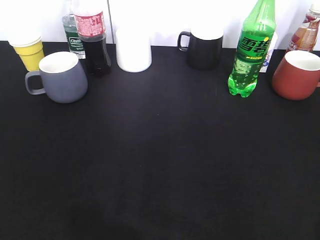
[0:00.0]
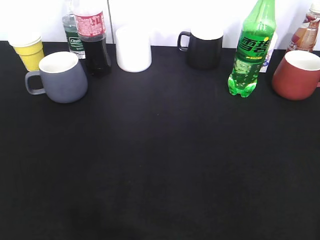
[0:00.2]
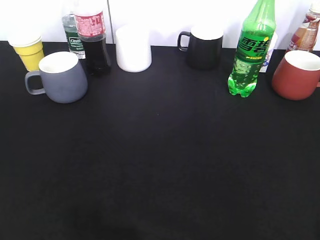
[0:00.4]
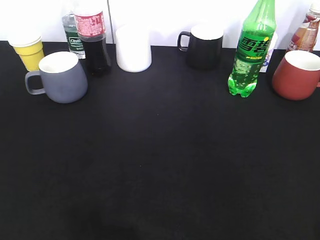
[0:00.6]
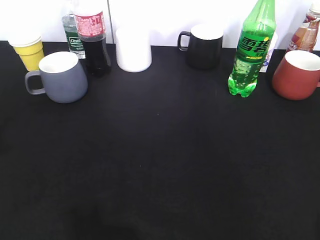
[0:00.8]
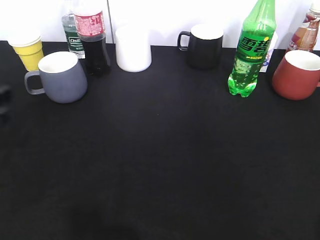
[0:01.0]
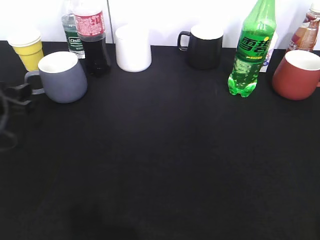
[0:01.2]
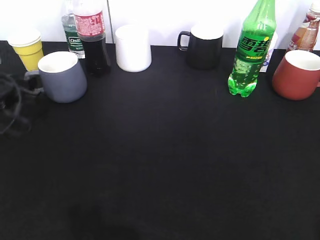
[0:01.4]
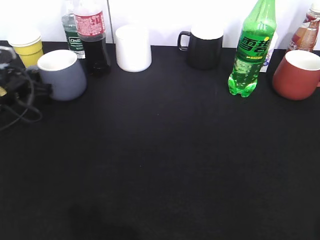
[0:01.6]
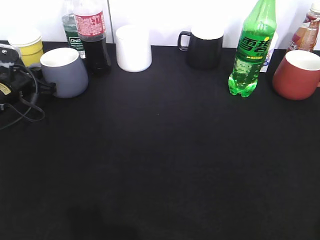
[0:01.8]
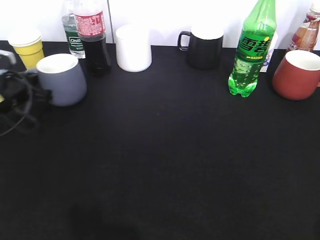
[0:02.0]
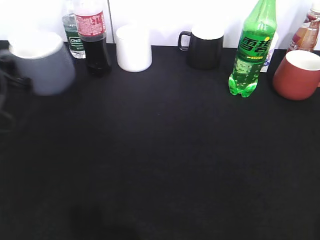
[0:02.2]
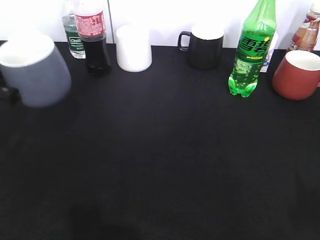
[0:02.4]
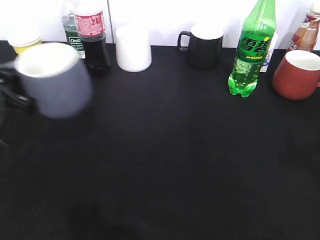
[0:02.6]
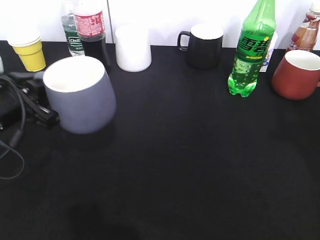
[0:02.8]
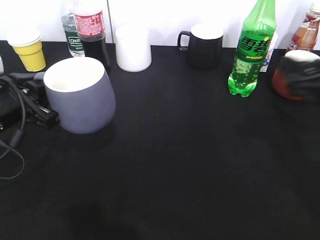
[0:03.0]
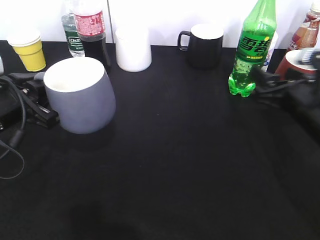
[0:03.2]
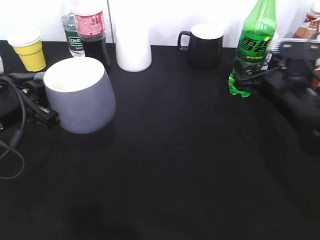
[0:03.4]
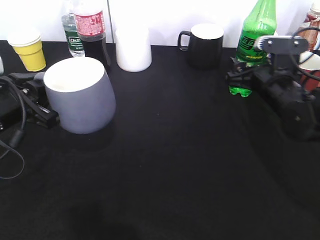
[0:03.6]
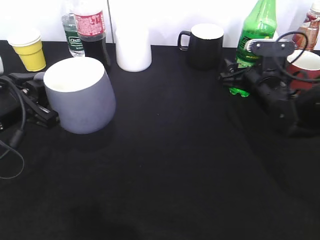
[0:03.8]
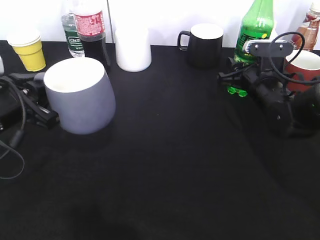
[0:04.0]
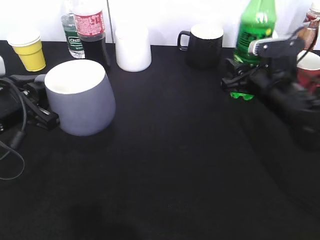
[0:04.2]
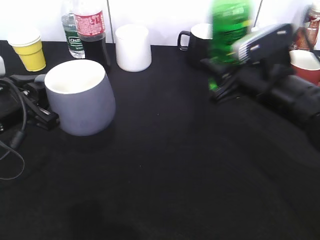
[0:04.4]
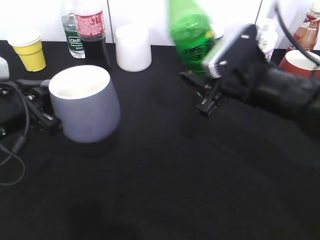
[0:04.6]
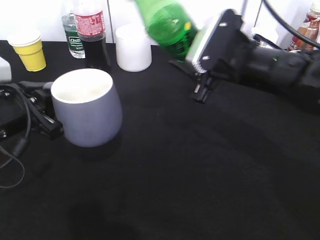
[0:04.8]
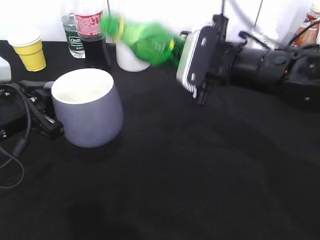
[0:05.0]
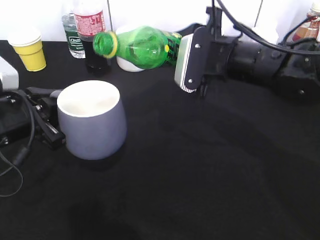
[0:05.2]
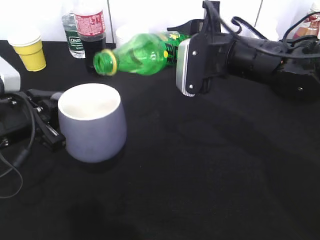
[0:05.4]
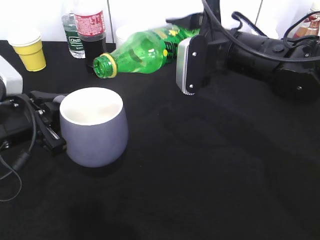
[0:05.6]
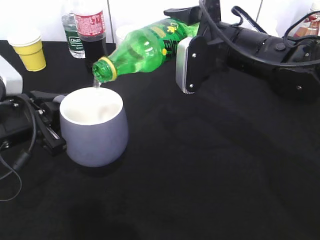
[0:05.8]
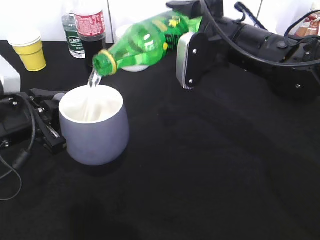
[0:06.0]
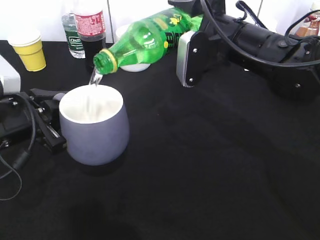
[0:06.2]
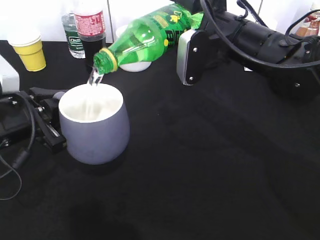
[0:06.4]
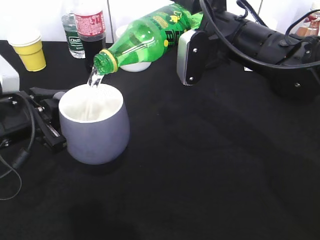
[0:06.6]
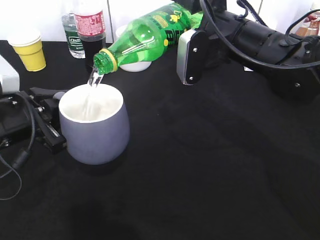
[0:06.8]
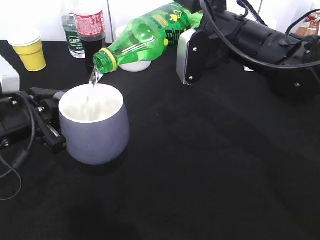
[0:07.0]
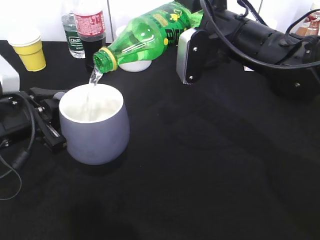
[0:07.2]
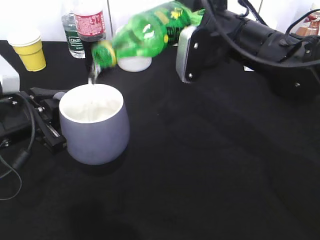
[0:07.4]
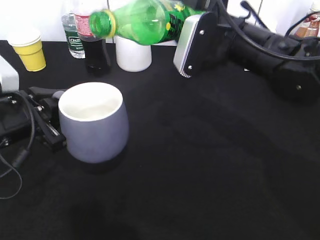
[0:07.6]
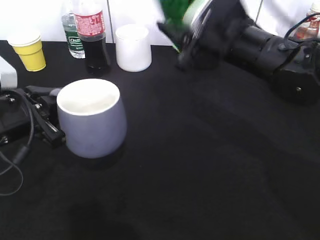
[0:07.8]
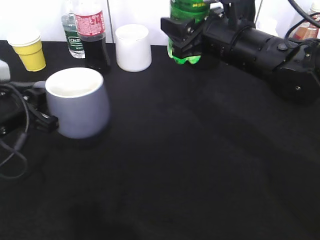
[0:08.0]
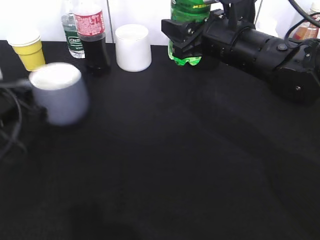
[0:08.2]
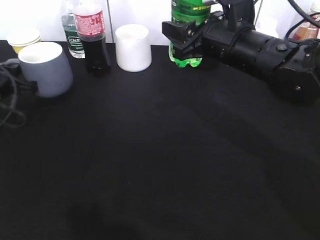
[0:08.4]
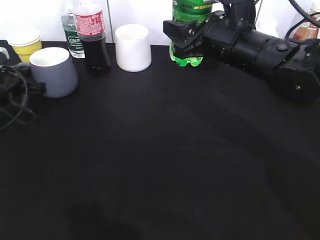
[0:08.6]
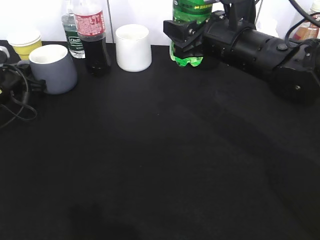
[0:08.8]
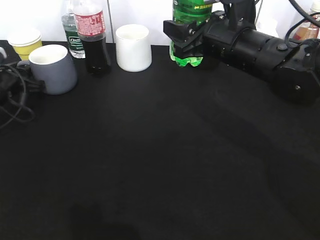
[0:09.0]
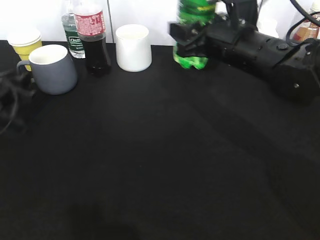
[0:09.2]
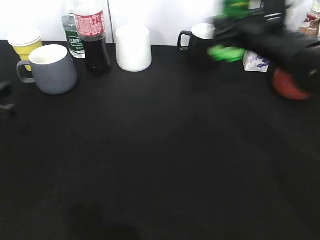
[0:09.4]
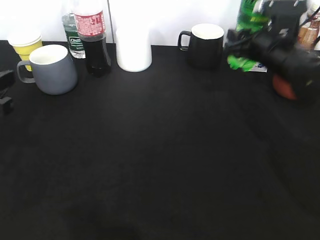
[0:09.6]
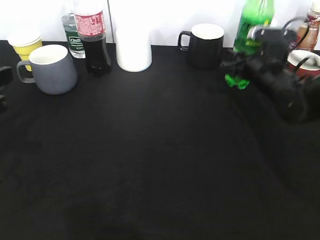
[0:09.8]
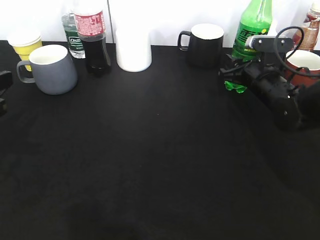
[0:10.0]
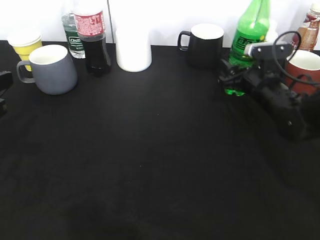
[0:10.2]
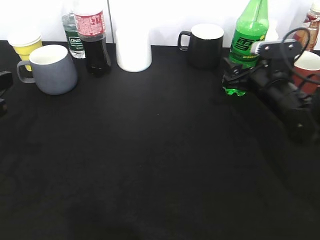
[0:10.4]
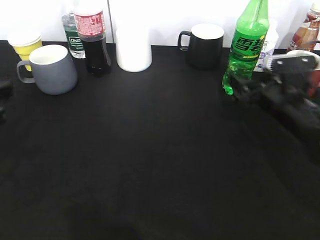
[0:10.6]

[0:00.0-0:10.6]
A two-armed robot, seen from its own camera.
Step, 0:00.0 to 0:01.8: Grasp the grey cup with left gripper.
Step, 0:02.0 to 0:02.8: Lift the grey cup with left gripper.
Step, 0:03.0 to 0:04.0: Grasp the bottle with sprite with right gripper.
Step, 0:04.2 to 0:07.4: Pour the sprite from bottle to cup with right gripper.
Step, 0:07.8 to 0:10.4: Place the sprite bottle on the table with right gripper.
0:00.0 to 0:01.6: The left gripper moves forward and downward, roughly 40 cm, and closes its fingers.
0:01.6 to 0:03.0: The left gripper goes approximately 15 cm backward, upward and to the right. The right gripper heads forward, covering approximately 25 cm.
0:03.0 to 0:04.6: The right gripper travels to the left and forward by roughly 10 cm, and closes its fingers.
0:04.6 to 0:06.0: The right gripper ends up about 5 cm from where it was.
0:06.0 to 0:07.6: There are only small adjustments of the grippers.
0:07.6 to 0:09.0: The left gripper travels forward, to the left and downward by approximately 20 cm, and opens.
0:09.0 to 0:10.6: The left gripper travels backward and upward by some 20 cm. Meanwhile the right gripper is displaced to the right and downward by about 15 cm, and opens.

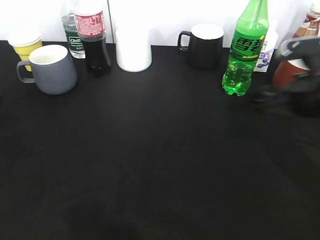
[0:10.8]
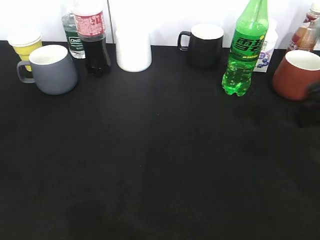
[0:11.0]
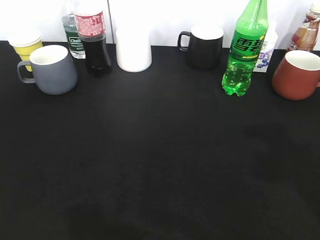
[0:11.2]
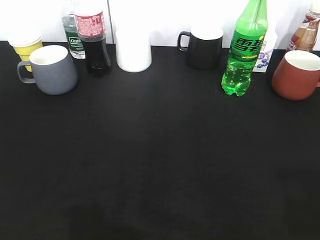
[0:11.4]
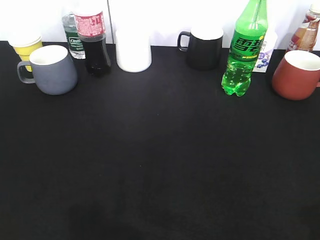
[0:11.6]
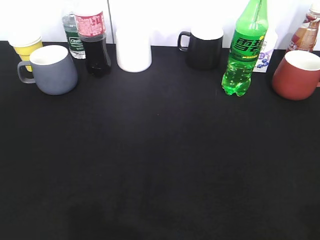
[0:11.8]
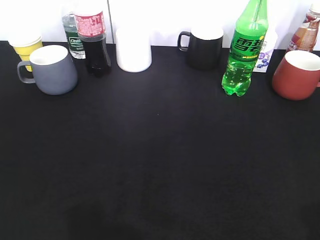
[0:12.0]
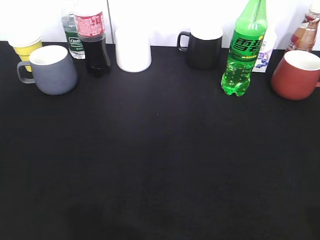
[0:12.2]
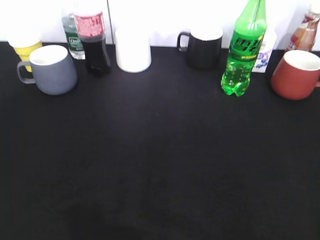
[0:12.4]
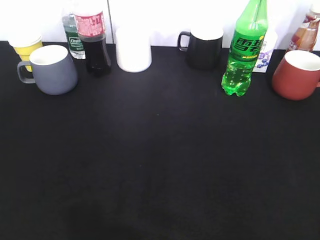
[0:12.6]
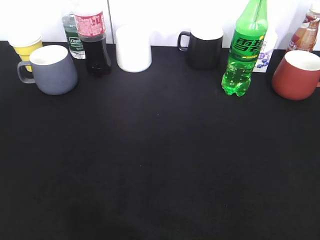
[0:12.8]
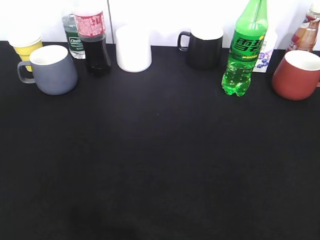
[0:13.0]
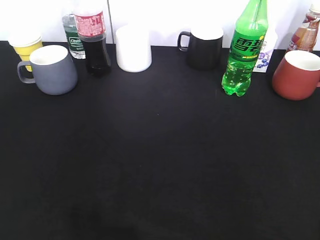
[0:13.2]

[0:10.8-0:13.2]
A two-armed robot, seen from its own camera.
0:10.8 to 0:12.0: The grippers both shift backward by some 20 cm. The left gripper opens its fingers.

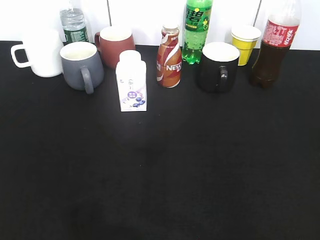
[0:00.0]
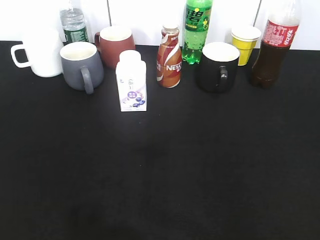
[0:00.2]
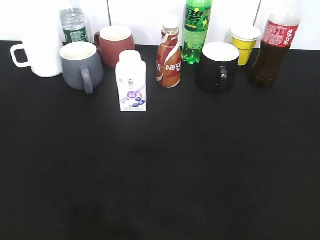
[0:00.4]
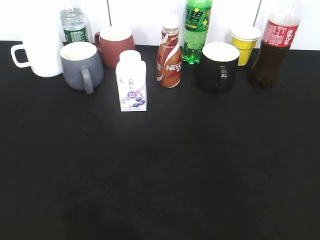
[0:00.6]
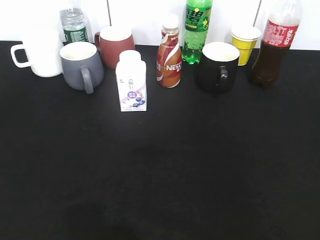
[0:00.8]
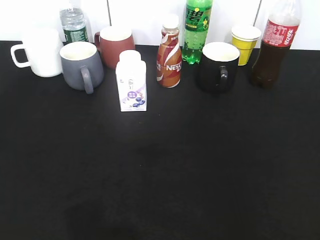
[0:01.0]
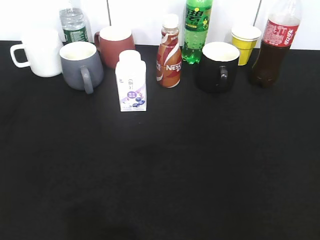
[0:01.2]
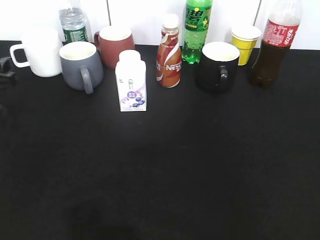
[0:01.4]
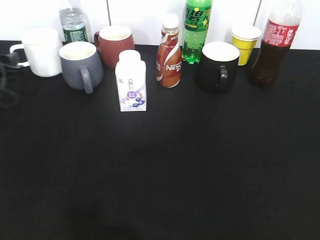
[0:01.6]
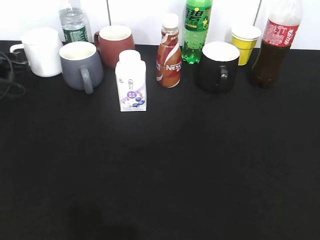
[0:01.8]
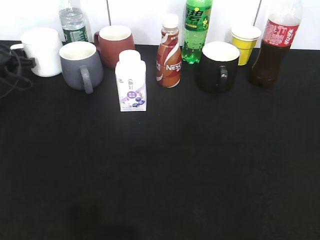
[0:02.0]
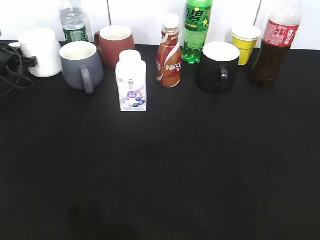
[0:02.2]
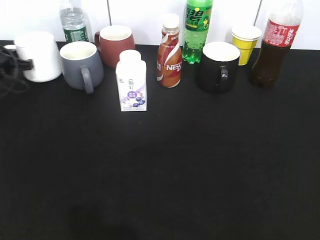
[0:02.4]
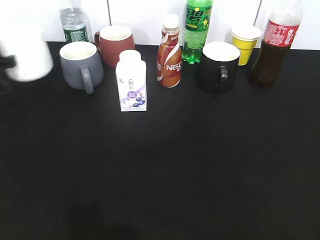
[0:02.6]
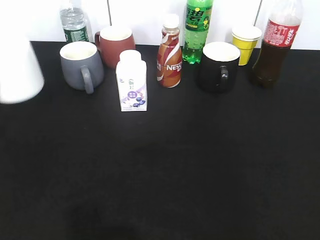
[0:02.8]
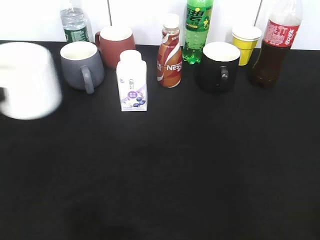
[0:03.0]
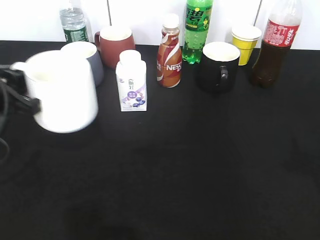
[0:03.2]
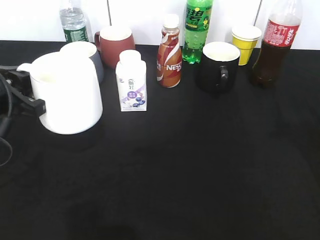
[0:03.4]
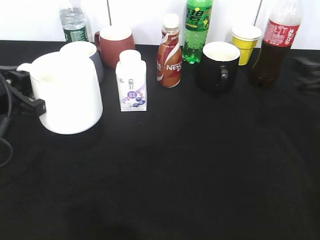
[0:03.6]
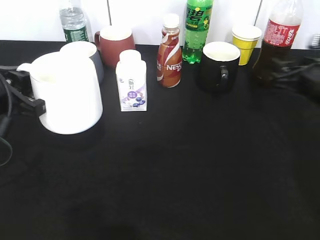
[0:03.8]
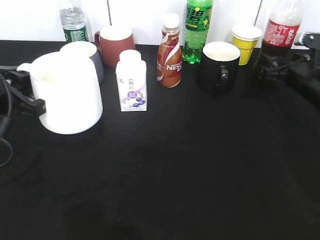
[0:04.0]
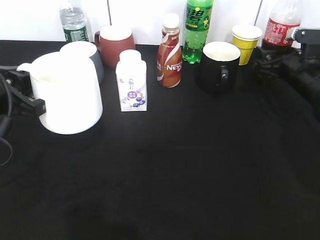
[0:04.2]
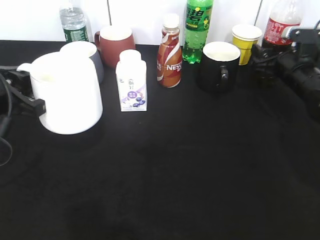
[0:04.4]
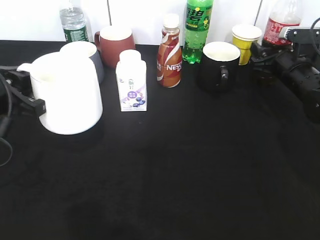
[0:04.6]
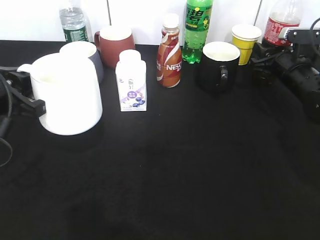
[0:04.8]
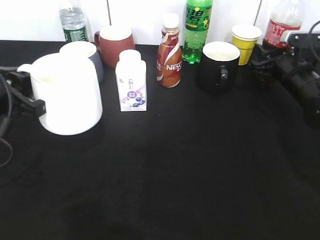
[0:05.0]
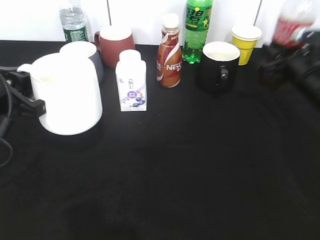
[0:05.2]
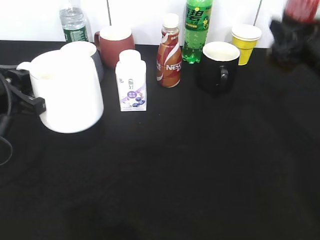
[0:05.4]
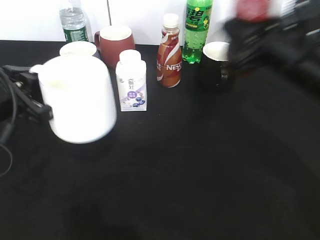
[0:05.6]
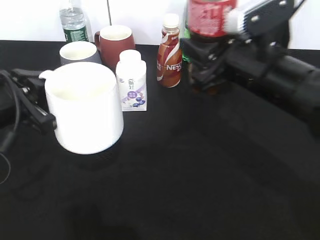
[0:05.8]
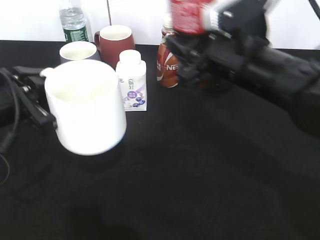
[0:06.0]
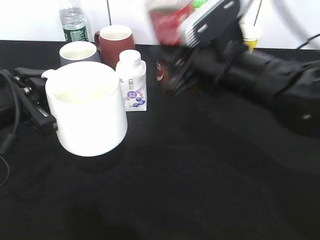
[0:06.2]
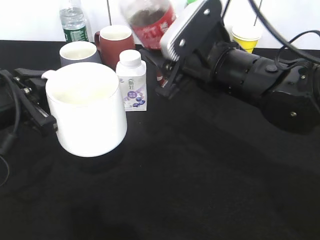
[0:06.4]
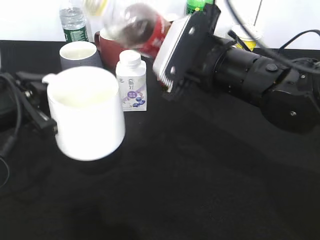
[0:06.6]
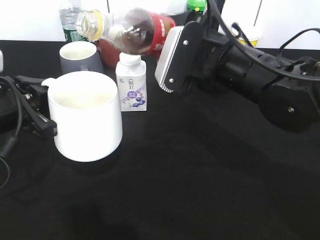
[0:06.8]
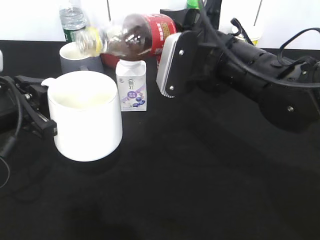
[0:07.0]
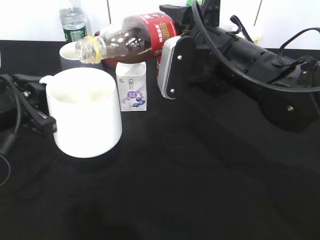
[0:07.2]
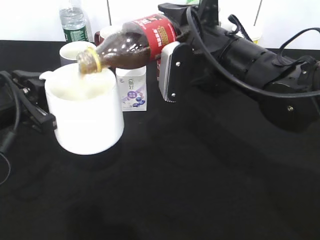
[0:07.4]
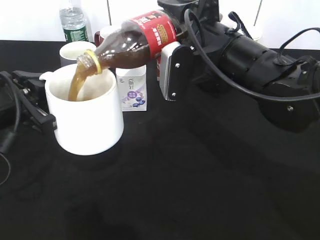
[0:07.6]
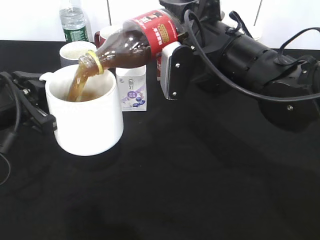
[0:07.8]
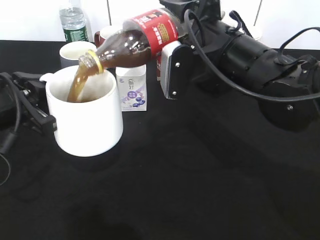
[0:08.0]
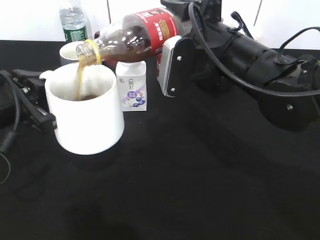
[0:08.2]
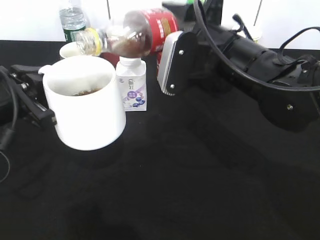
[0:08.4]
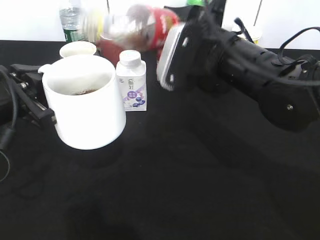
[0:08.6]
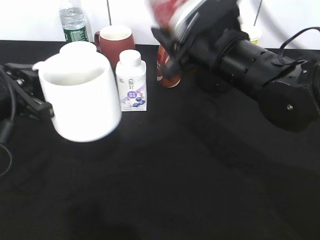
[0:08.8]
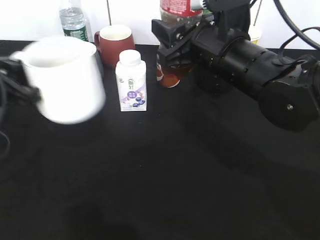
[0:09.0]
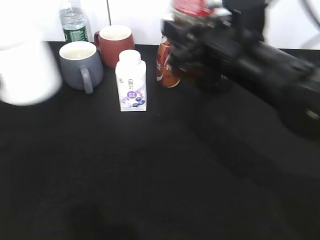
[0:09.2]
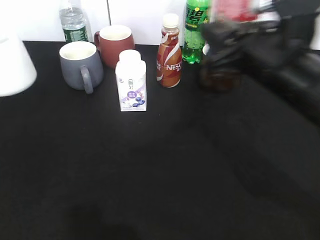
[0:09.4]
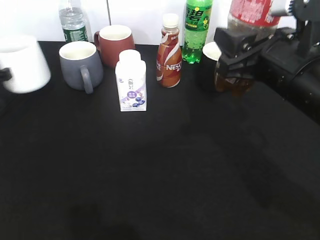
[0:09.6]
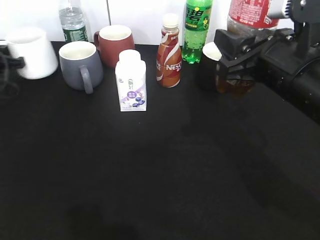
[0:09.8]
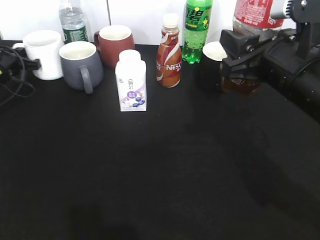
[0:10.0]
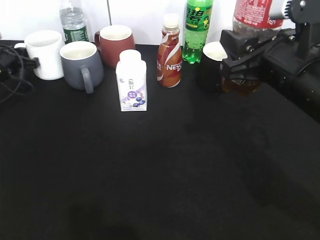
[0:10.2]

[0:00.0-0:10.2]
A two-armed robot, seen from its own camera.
Step, 0:00.0 to 0:02.2: Grasp the white cup with left gripper.
Step, 0:02.4 to 0:03.2: Lift the white cup with left gripper.
Step, 0:03.6 to 0:04.6: Grasp the bottle with cola with right gripper.
Step, 0:04.8 to 0:08.4: Pour the cola from bottle to cup with right gripper.
0:00.0 to 0:01.4: The left gripper goes some 30 cm forward.
0:01.4 to 0:03.0: The left gripper travels forward and back again, about 15 cm each way, and closes its fingers.
0:03.0 to 0:04.4: The right gripper is displaced forward and downward by approximately 40 cm; the left gripper shifts some 5 cm to the right.
0:04.4 to 0:05.8: The right gripper goes roughly 25 cm backward, to the left and upward, and closes its fingers.
0:05.8 to 0:07.2: The right gripper shifts by some 5 cm.
0:08.8 to 0:10.2: The left gripper travels forward, to the left and downward by some 30 cm, and opens up. Meanwhile the right gripper heads to the right and backward, covering some 10 cm.
